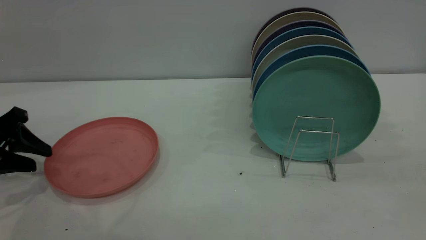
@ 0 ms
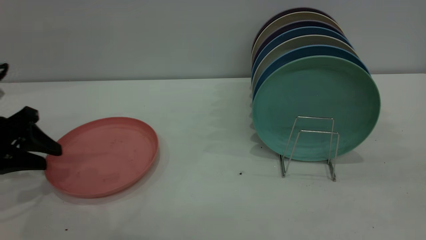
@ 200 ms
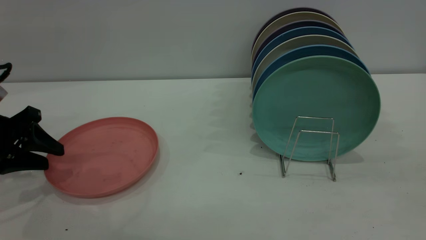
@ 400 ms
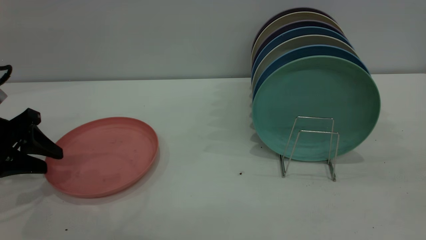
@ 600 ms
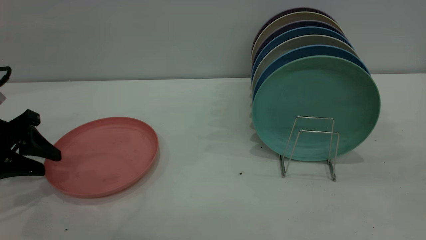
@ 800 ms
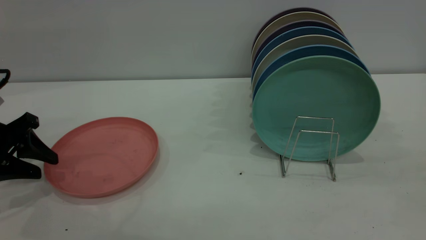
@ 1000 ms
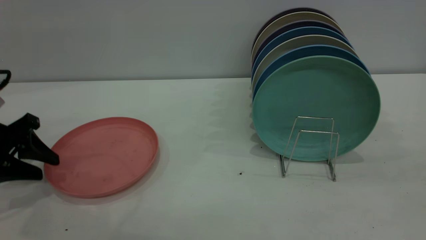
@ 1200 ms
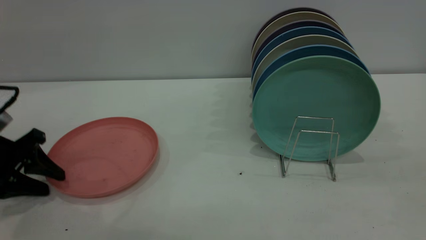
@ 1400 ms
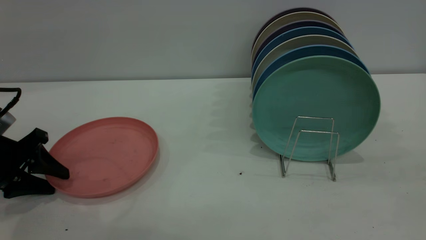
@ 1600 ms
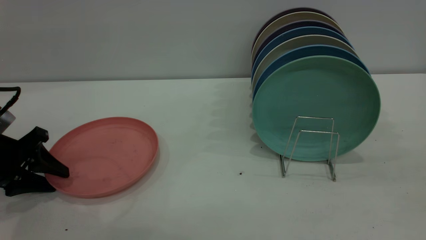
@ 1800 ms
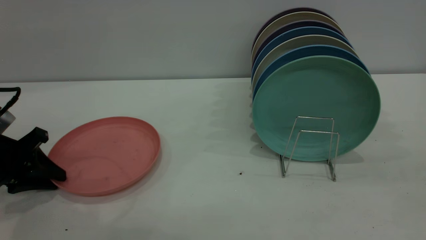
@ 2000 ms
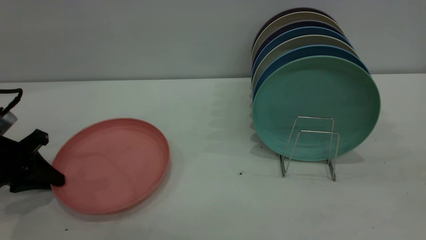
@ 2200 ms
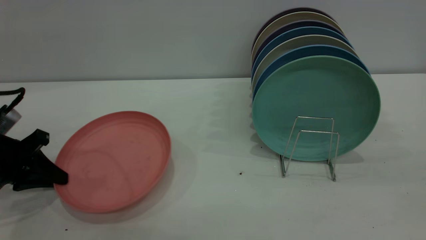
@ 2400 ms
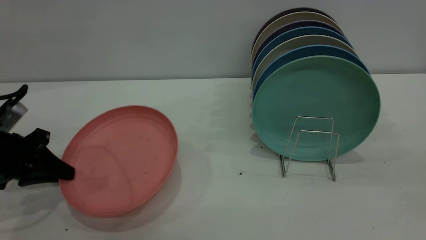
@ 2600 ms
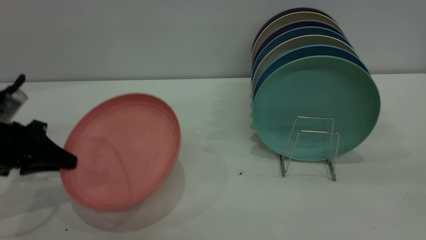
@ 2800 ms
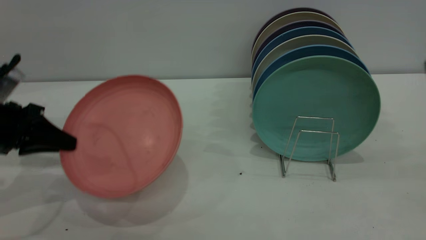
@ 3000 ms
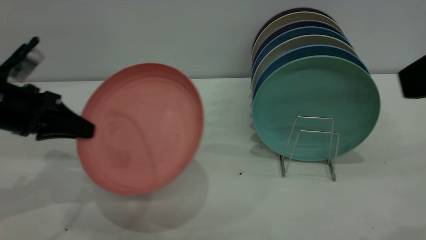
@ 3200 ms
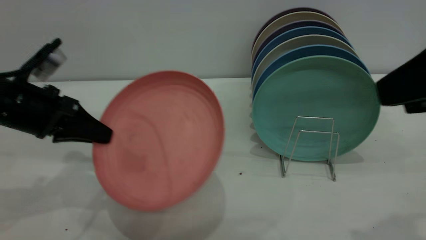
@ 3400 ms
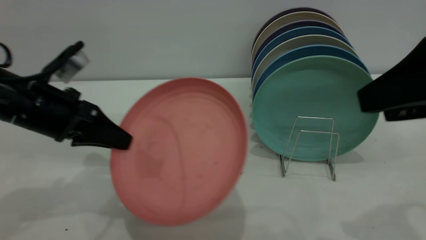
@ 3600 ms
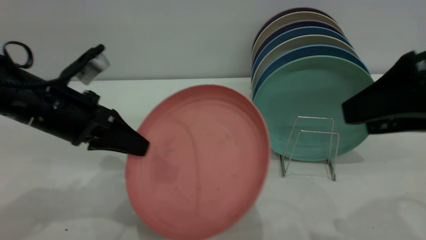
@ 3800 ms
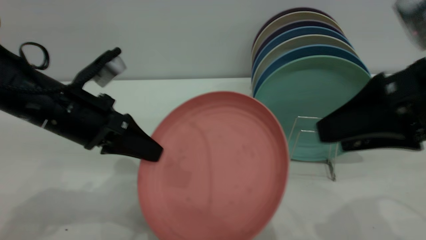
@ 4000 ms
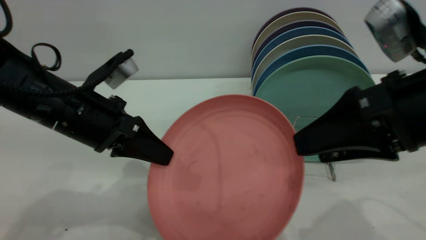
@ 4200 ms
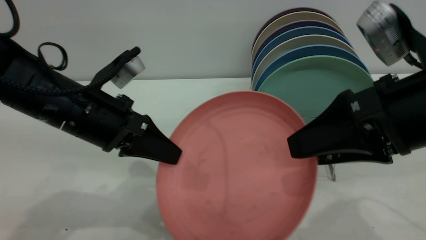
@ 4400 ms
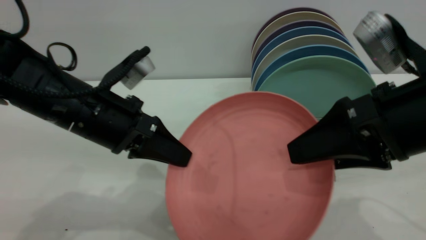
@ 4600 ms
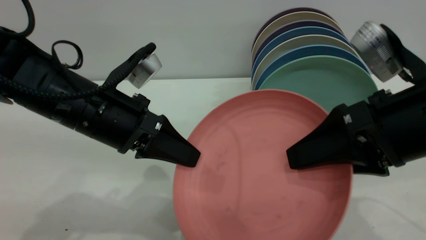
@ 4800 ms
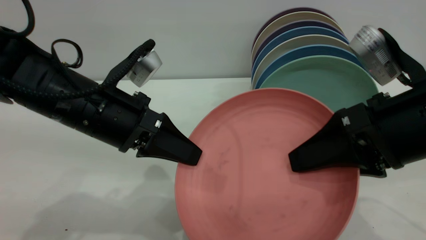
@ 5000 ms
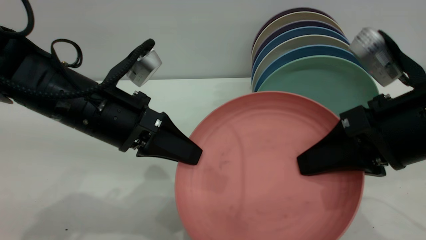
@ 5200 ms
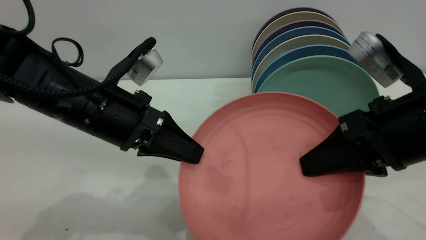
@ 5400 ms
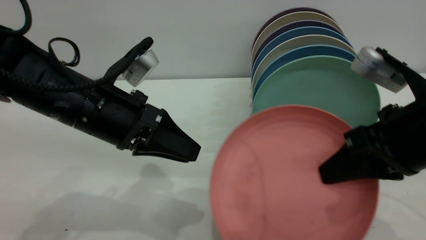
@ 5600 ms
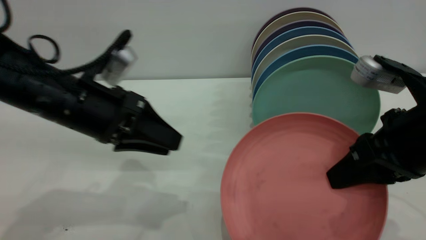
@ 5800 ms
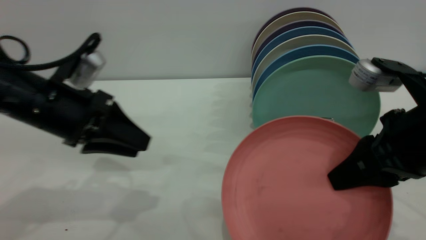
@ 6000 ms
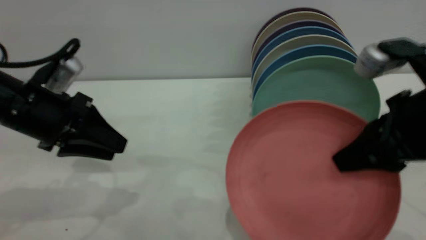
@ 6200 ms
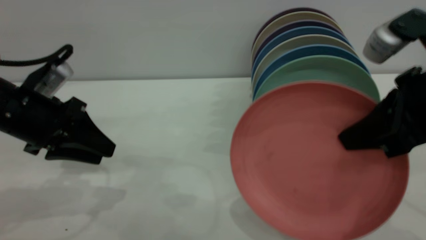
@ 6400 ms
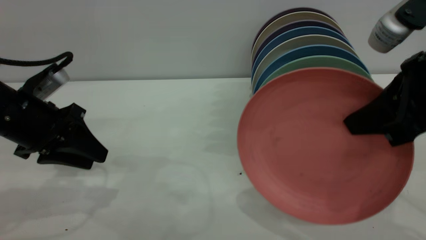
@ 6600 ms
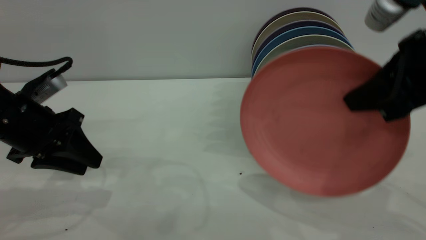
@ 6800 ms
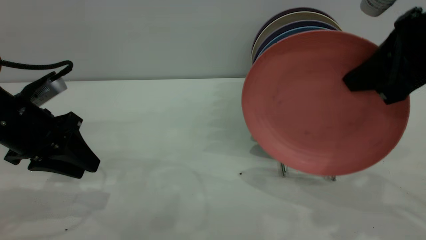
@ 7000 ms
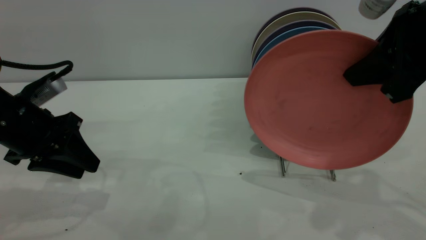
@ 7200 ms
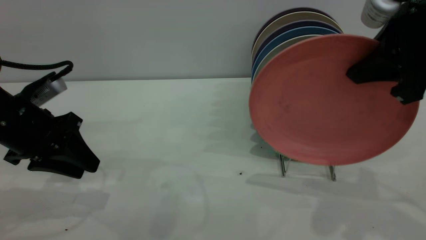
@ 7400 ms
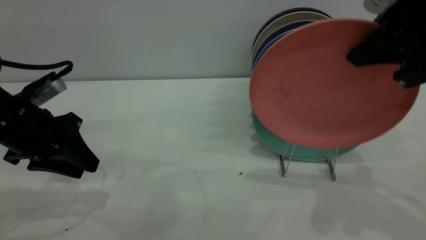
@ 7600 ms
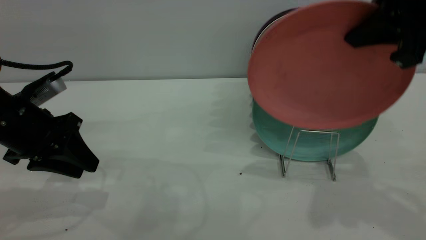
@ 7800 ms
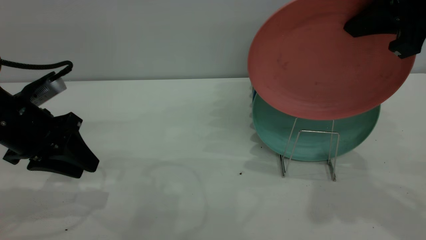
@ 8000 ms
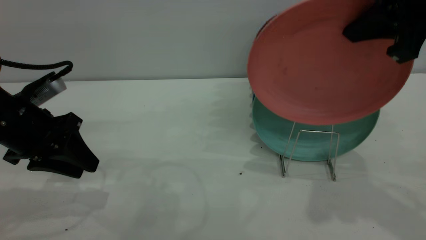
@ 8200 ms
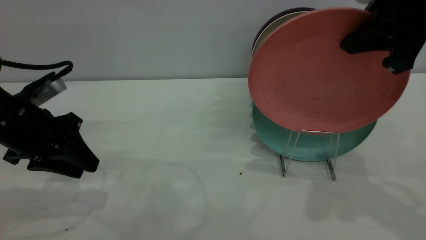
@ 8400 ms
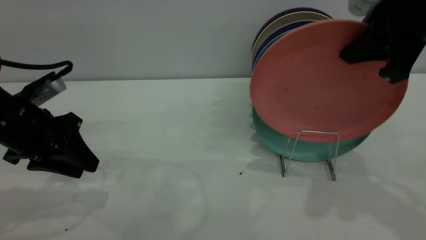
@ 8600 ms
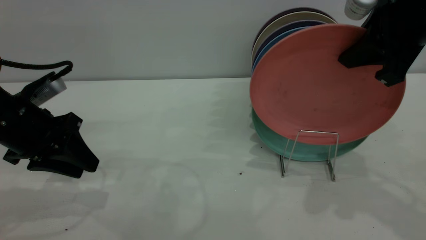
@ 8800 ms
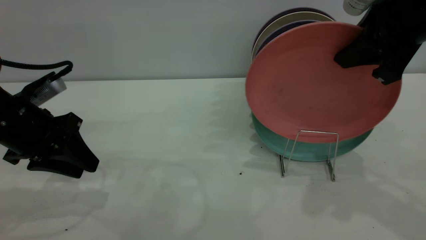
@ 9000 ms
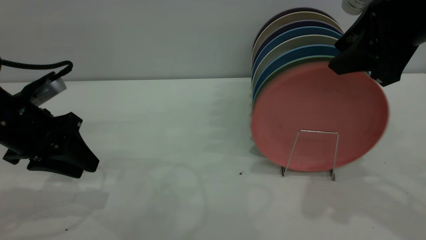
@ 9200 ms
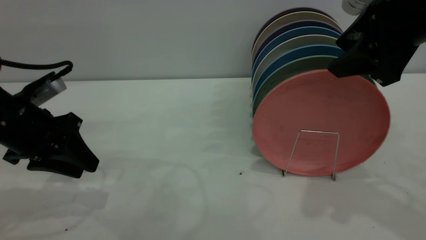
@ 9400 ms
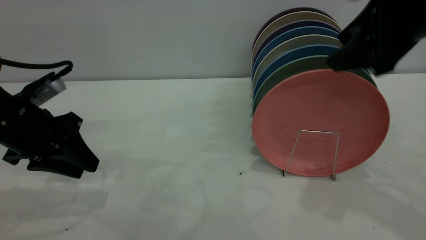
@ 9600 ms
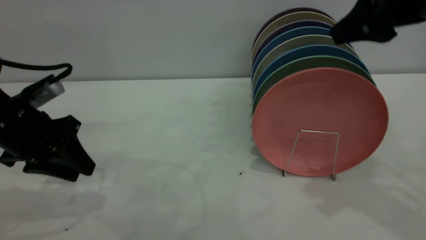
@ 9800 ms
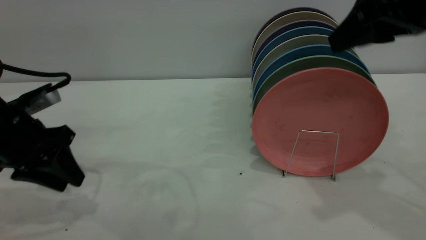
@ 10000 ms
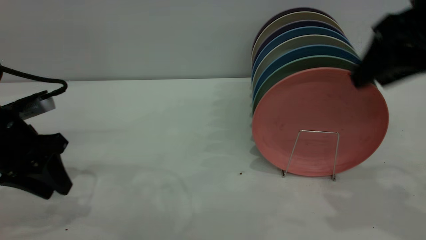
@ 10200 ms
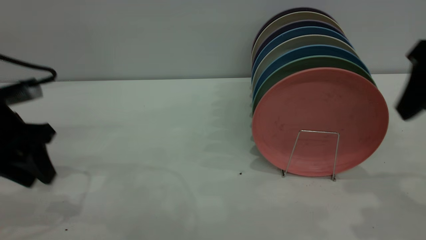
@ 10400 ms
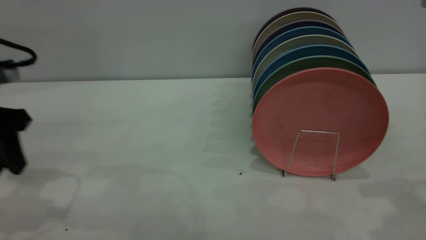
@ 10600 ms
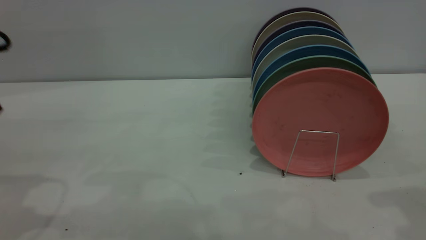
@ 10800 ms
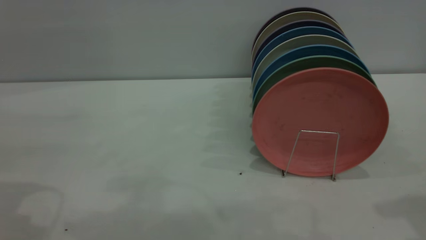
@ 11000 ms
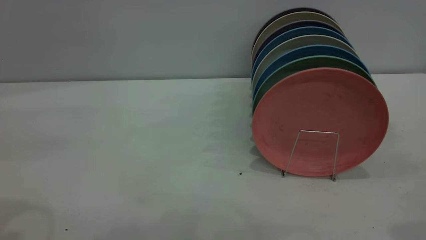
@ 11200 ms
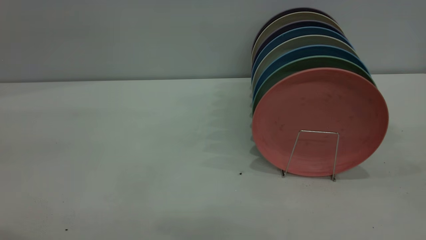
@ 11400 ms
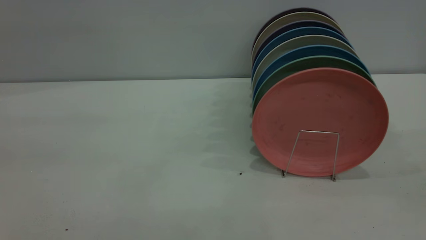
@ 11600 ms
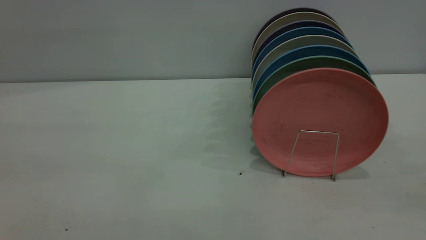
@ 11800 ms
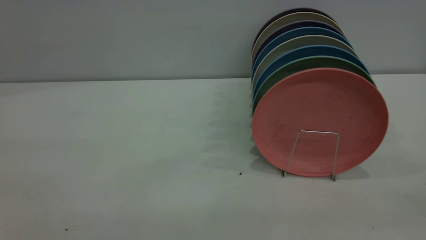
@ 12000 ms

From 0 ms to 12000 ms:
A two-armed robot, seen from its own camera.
Task of the whole recording: put the plate on the plate rack.
Step, from 0 ms to 2200 ms: Pick up the plate with the left gripper.
Step, from 2400 ms to 5400 ms: Pass the plate from the left gripper to the right gripper.
Step, from 5800 ms to 10200 ms: Place the plate on the shelf.
From 0 ms to 1600 ms: The grippers move only a little.
From 1600 ms to 3000 ms: The left gripper shifts roughly 5 cm upward, and closes up.
From 3000 ms to 4400 ms: The right gripper moves downward, forward and to the left, about 15 cm. The left gripper shifts roughly 15 cm to the right.
From 4400 ms to 6000 ms: The left gripper heads to the left, covering about 5 cm, and opens, while the right gripper closes.
From 6000 ms to 7600 ms: The right gripper travels upward and forward by roughly 10 cm. The left gripper moves to the left, some 5 cm.
From 7600 ms to 9000 ms: The grippers move only a little.
From 9000 ms to 10400 ms: The right gripper moves roughly 5 cm, and opens.
From 10400 ms to 12000 ms: The grippers both shift backward and upward by about 30 cm.

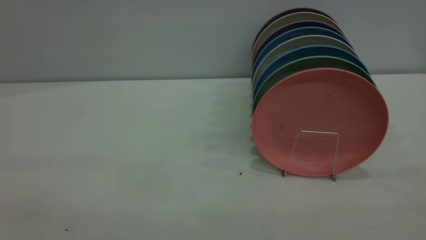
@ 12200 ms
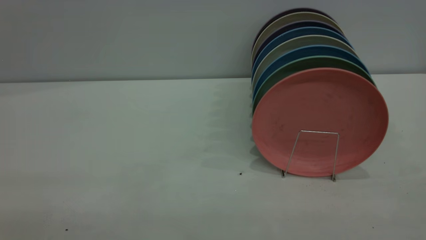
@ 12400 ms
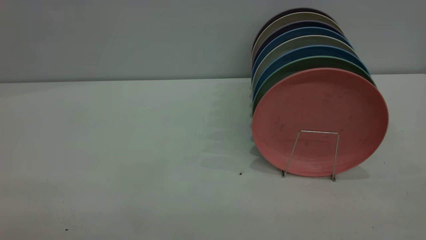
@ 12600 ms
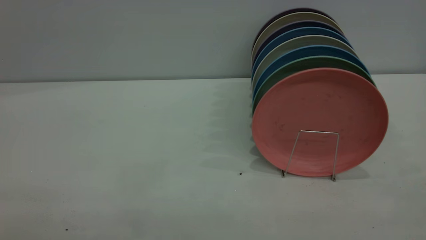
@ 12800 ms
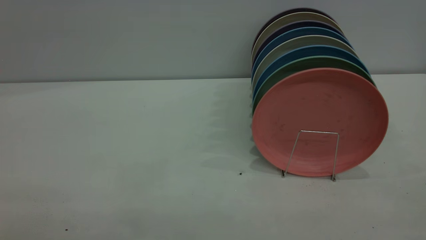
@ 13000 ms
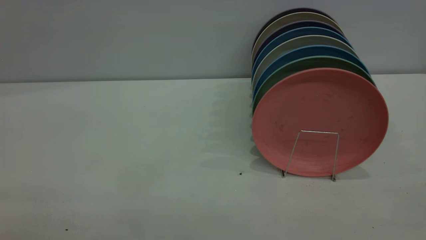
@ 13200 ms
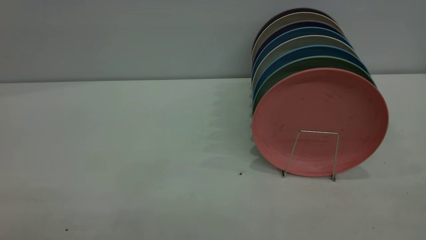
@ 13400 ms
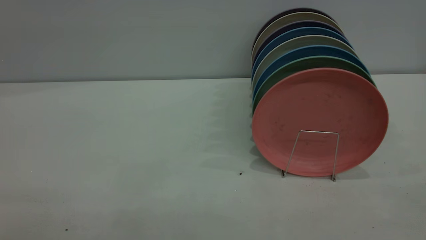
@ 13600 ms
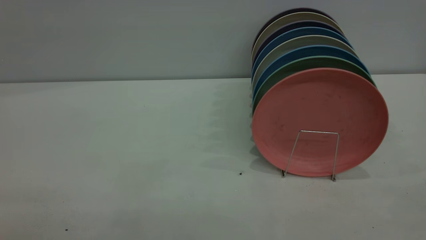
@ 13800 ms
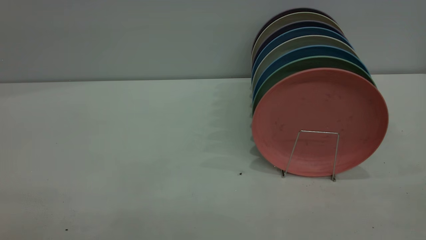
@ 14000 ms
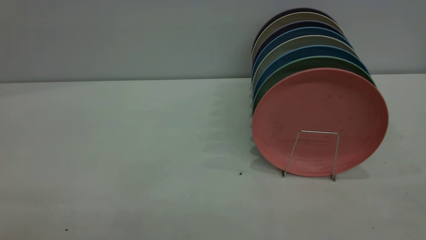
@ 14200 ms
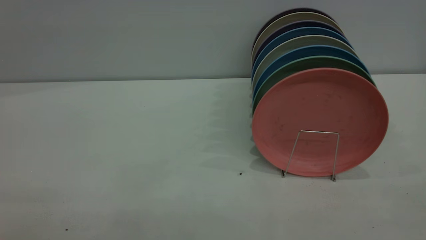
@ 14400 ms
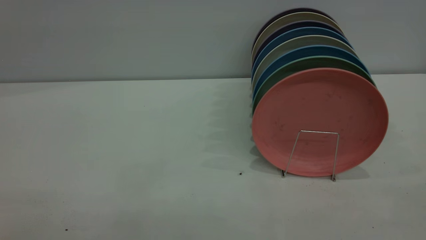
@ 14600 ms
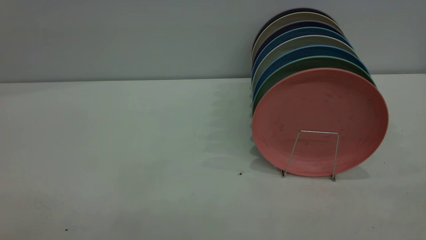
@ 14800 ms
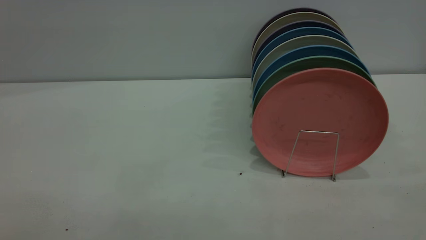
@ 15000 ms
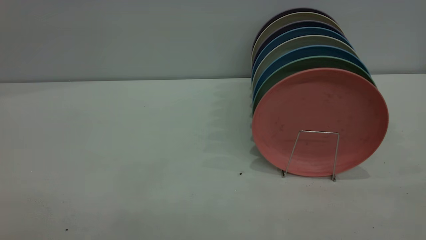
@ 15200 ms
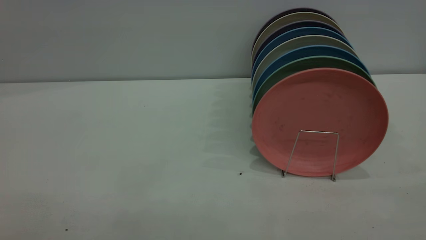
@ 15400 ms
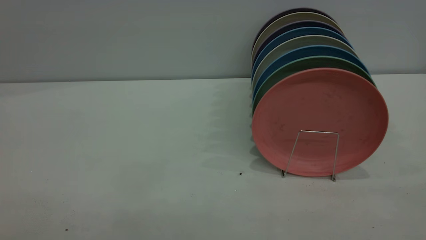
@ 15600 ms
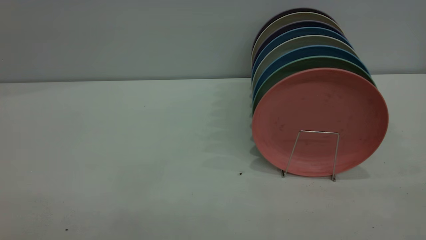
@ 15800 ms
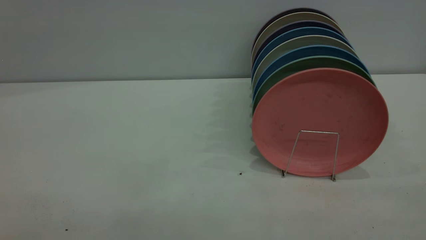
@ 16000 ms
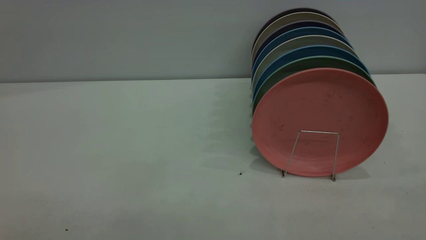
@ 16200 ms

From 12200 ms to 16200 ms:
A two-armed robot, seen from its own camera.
Task of the whole recording: put the plate on the plate rack.
From 13600 ms to 14800 ms: Both grippers stay put.
From 14800 ms to 16200 ms: Neither gripper changes place.
